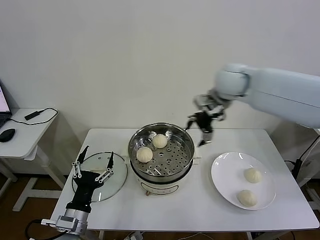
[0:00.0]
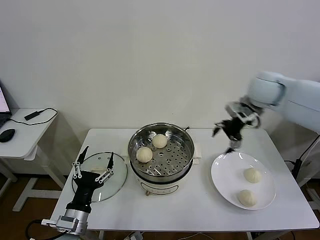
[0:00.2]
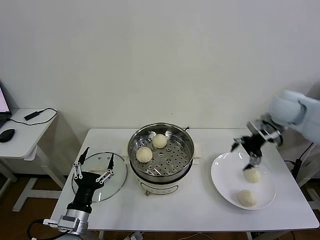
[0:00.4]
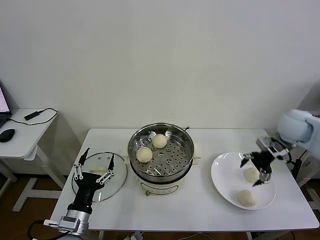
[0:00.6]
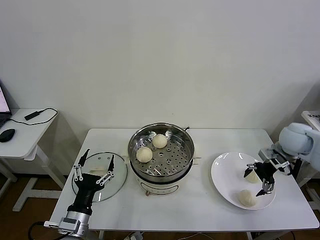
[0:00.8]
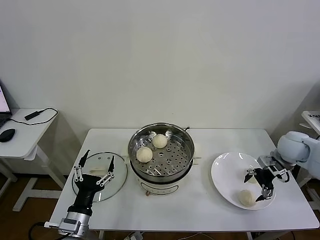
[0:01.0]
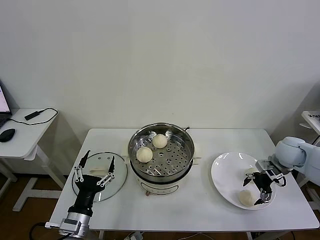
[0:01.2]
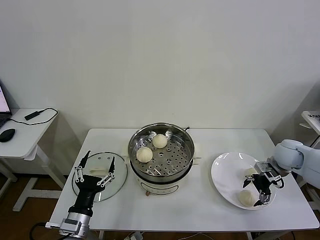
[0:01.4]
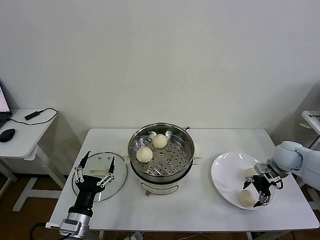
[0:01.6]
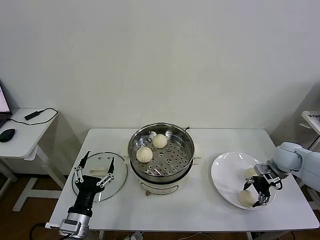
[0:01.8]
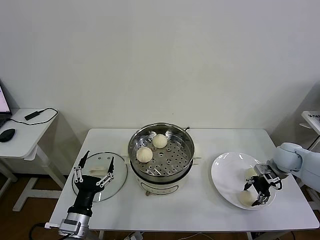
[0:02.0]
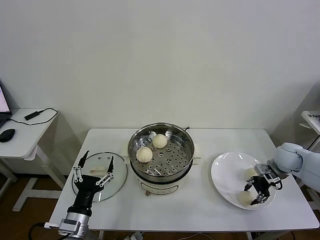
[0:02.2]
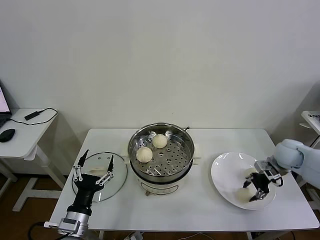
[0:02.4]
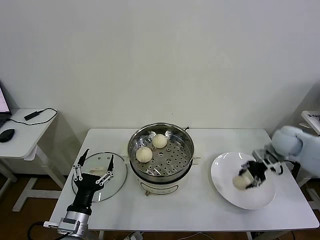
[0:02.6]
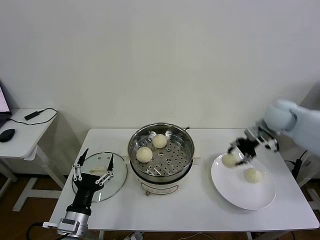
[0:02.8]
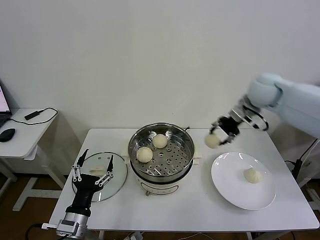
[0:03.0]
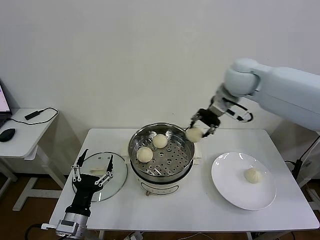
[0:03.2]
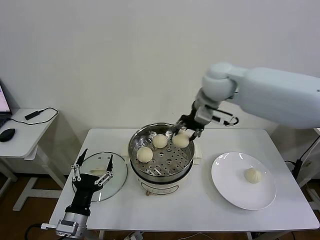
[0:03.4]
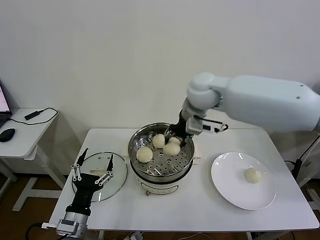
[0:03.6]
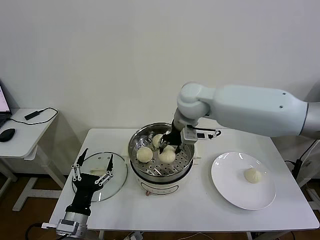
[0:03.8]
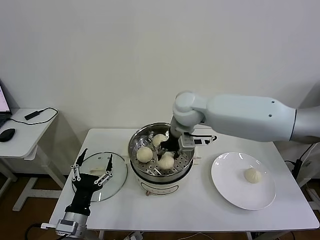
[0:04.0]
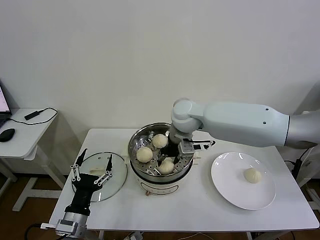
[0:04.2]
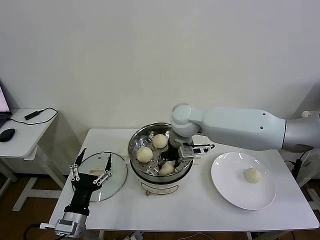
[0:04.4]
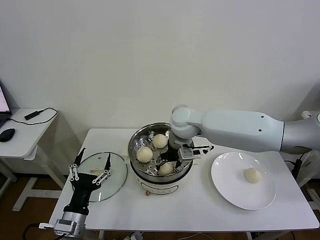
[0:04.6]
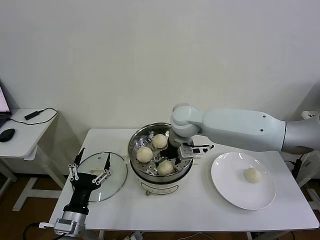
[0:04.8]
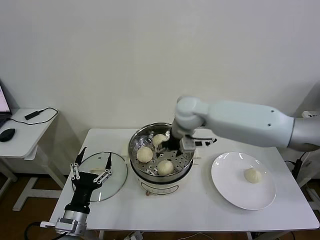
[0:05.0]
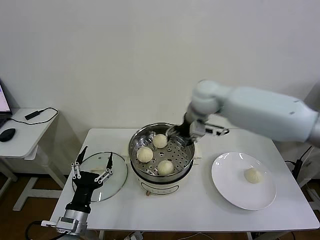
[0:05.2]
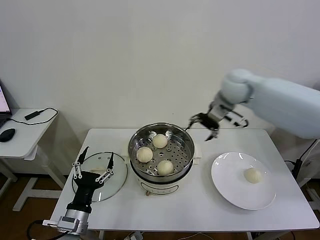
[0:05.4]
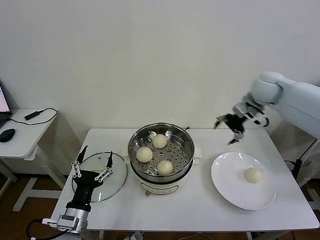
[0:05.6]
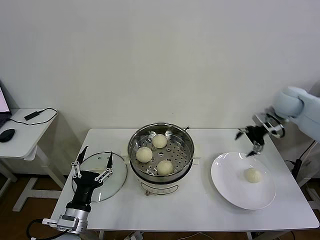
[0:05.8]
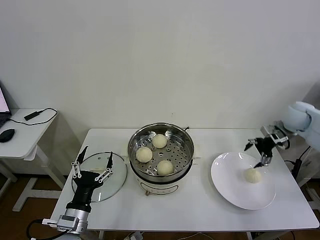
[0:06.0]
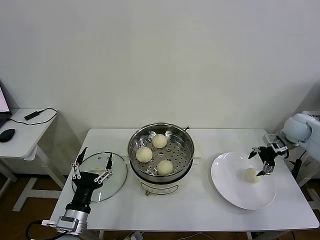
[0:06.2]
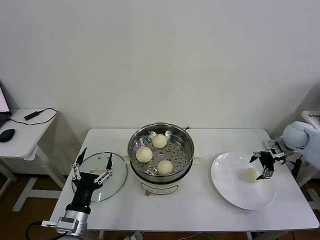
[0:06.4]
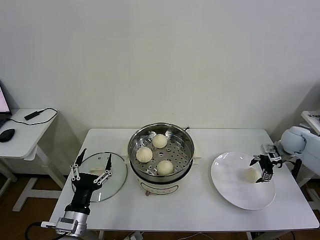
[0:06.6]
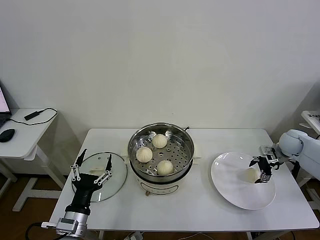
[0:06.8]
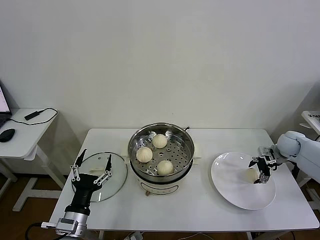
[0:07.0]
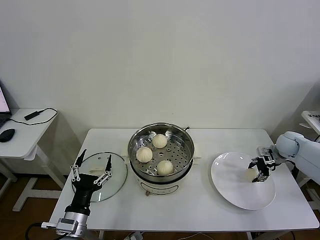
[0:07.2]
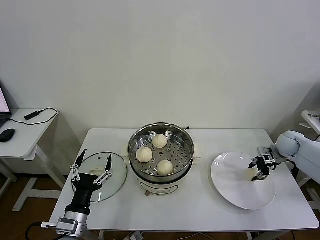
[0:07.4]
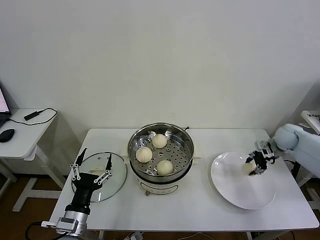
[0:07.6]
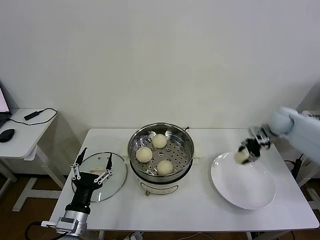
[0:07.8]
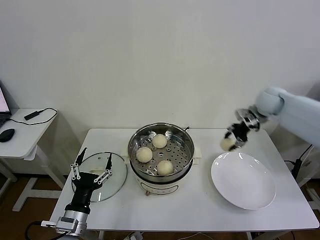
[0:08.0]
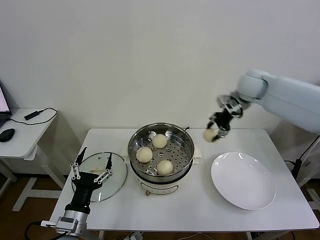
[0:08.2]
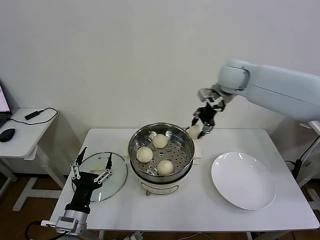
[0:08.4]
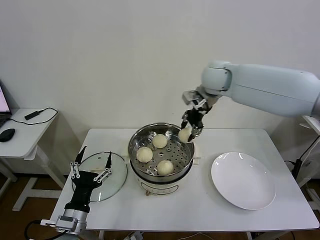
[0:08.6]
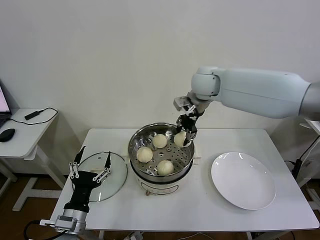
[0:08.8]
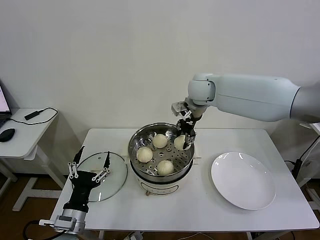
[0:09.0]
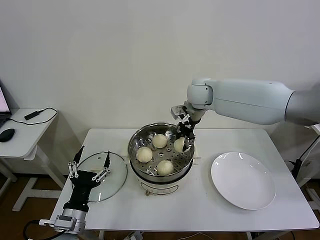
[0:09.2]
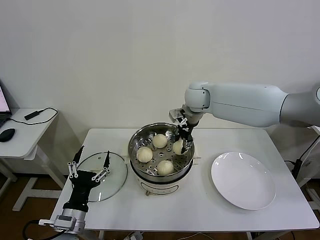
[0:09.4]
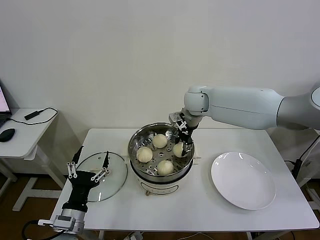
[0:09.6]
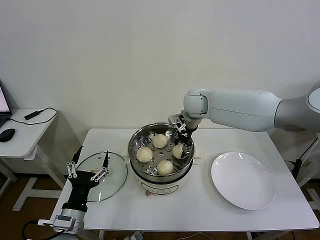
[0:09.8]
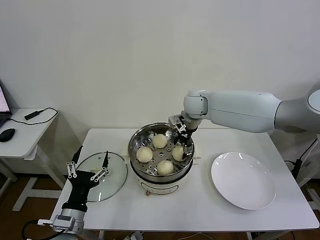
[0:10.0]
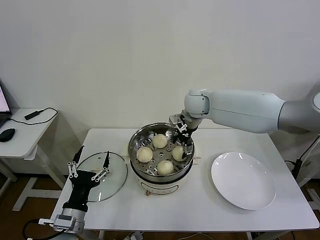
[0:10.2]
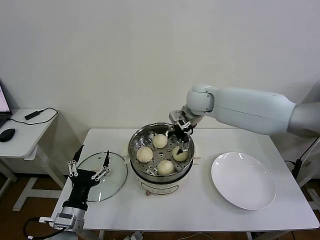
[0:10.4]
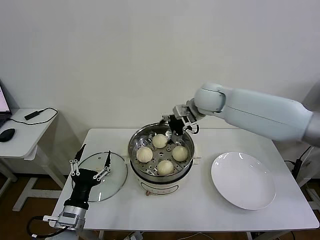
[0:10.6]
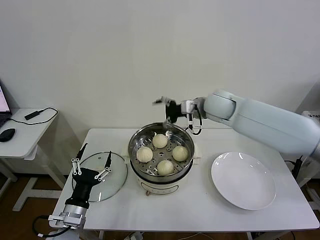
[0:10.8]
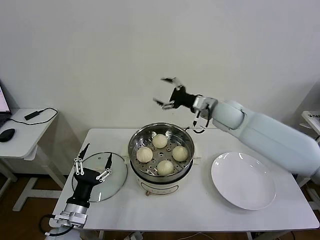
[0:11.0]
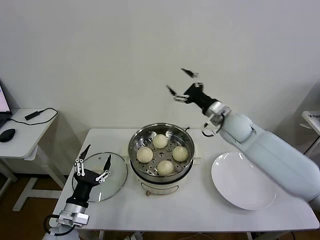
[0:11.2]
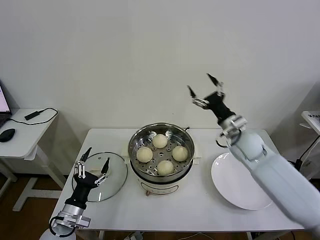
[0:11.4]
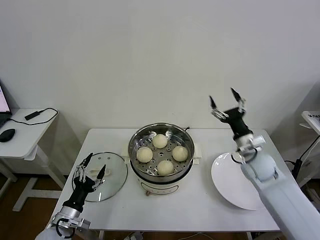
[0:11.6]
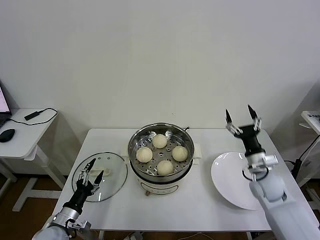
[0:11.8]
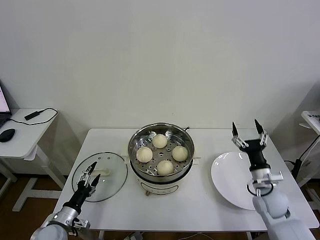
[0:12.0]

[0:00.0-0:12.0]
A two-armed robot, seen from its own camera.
Task of the whole recording: take steamed baozi put them in steamer then cover it.
Step, 0:00.0 to 0:02.2: Grasp the baozi in the plate with right gripper.
Step, 0:02.4 to 0:04.6: Place the baozi on the steamer with right gripper.
Step, 0:05.0 to 0:07.4: Grasp the baozi in the plate with right gripper.
Step, 0:07.6 to 0:10.2: Place the baozi on the steamer with right gripper.
0:00.0 to 0:01.6: The right gripper shifts some 35 cm to the right and downward.
0:01.6 to 0:03.0: The right gripper shifts roughly 25 cm upward, to the left and forward, and closes.
0:03.0 to 0:04.4: The right gripper goes some 25 cm to the left.
0:04.4 to 0:06.0: The right gripper goes roughly 40 cm to the right, and opens up.
0:06.0 to 0:07.6: The right gripper is displaced downward by some 10 cm, and closes.
0:07.6 to 0:09.0: The right gripper travels to the left and upward by about 40 cm.
0:09.0 to 0:10.4: The right gripper opens.
0:10.4 to 0:12.0: The right gripper goes roughly 40 cm downward, to the right and backward, while the left gripper is displaced downward and to the left by about 15 cm.

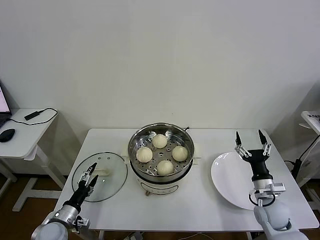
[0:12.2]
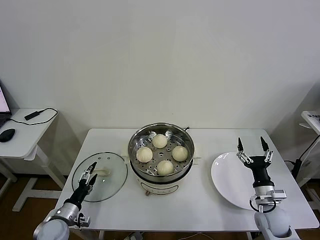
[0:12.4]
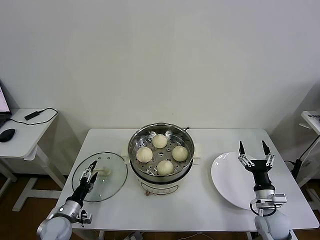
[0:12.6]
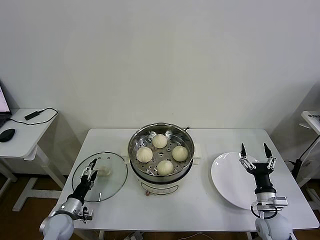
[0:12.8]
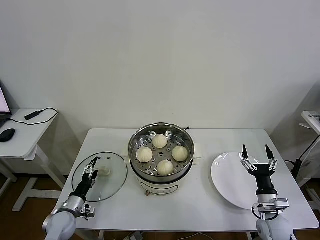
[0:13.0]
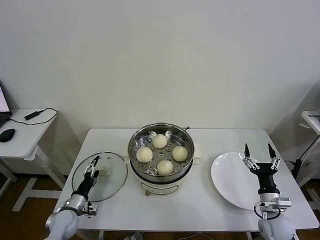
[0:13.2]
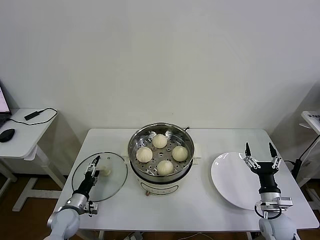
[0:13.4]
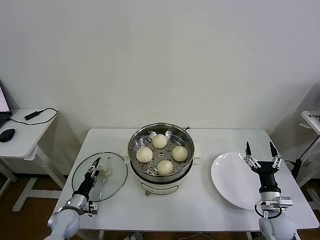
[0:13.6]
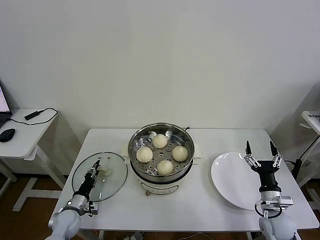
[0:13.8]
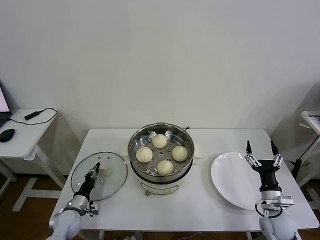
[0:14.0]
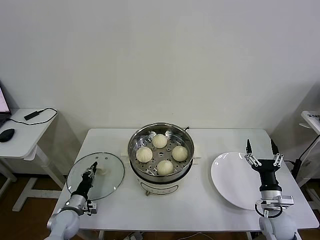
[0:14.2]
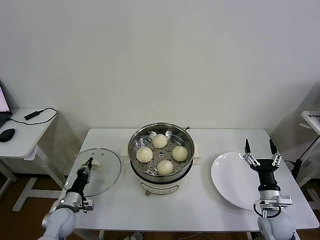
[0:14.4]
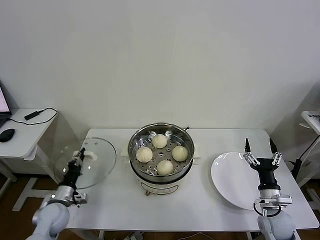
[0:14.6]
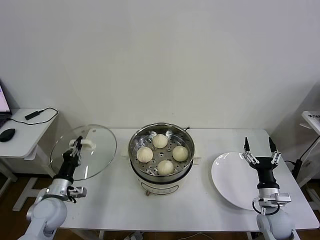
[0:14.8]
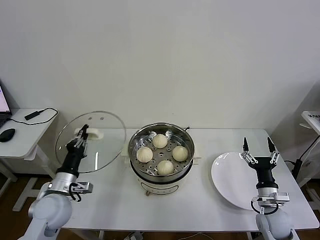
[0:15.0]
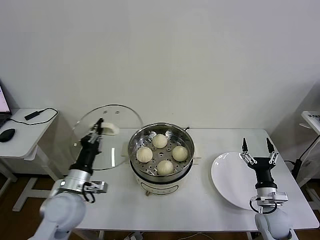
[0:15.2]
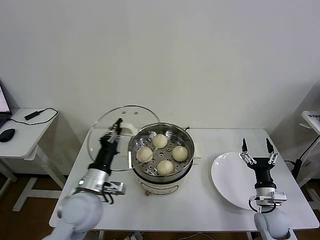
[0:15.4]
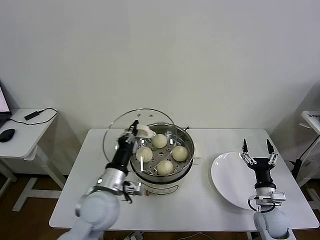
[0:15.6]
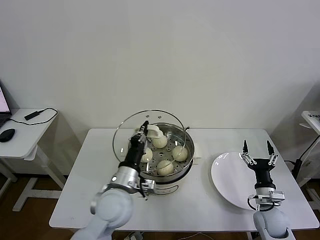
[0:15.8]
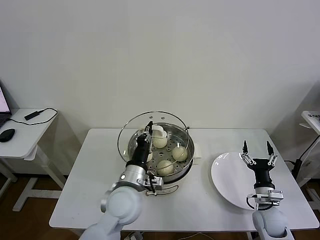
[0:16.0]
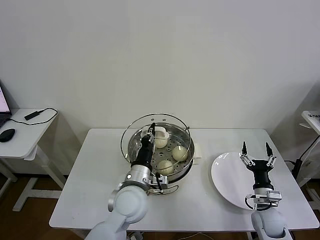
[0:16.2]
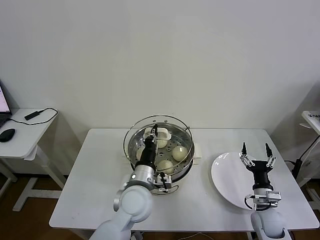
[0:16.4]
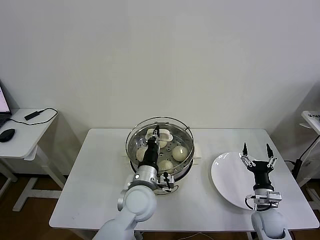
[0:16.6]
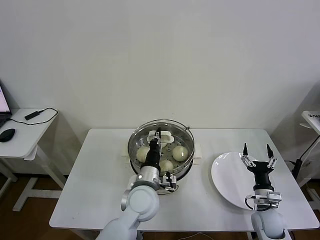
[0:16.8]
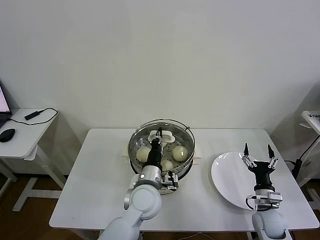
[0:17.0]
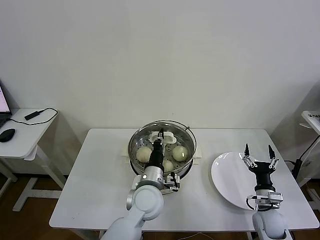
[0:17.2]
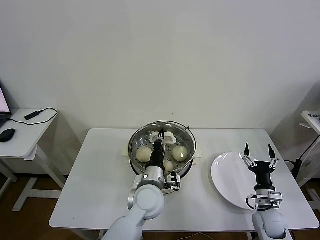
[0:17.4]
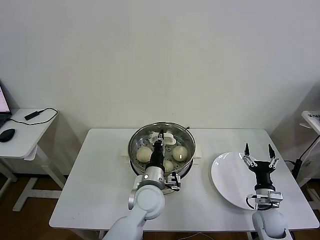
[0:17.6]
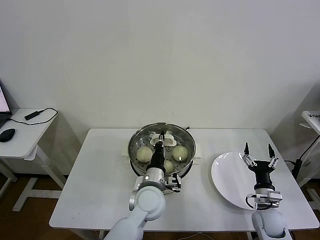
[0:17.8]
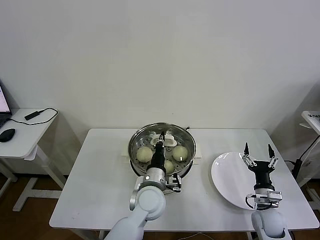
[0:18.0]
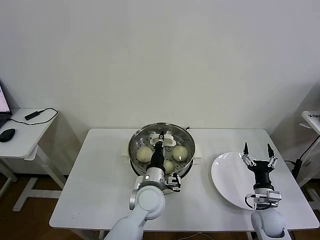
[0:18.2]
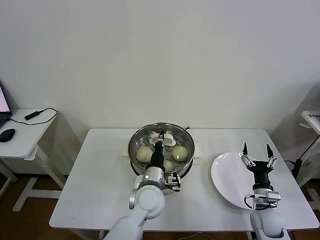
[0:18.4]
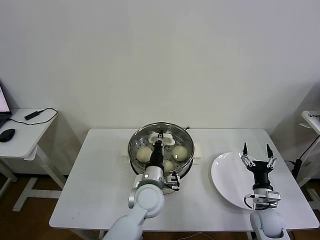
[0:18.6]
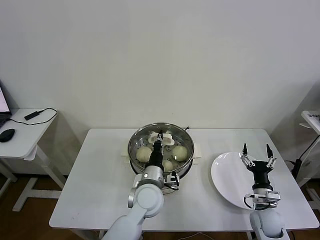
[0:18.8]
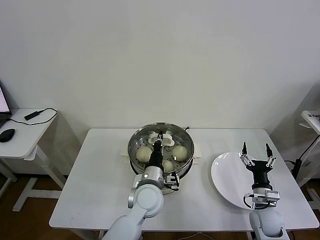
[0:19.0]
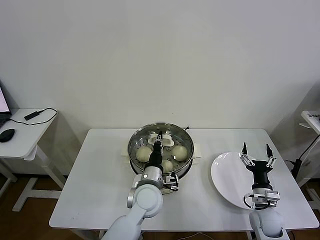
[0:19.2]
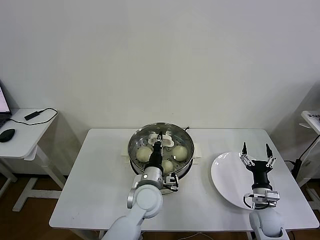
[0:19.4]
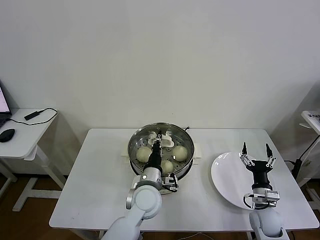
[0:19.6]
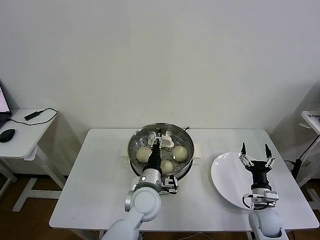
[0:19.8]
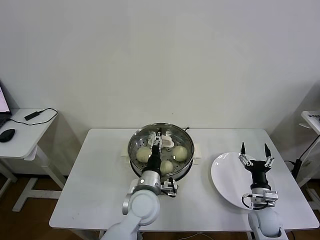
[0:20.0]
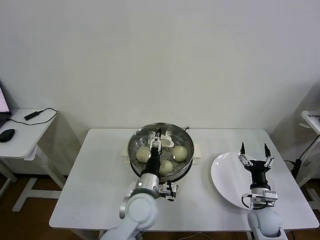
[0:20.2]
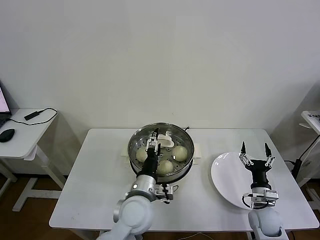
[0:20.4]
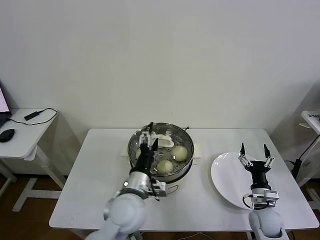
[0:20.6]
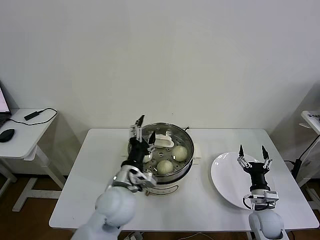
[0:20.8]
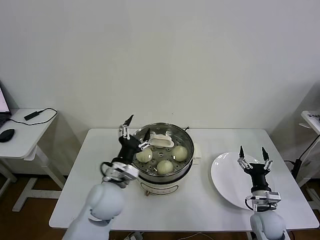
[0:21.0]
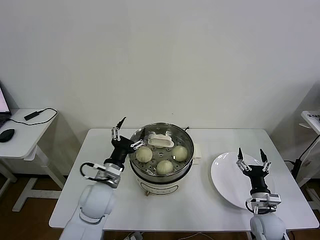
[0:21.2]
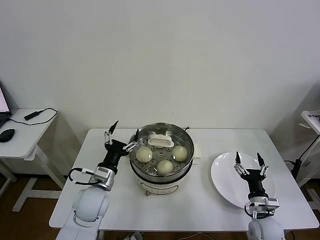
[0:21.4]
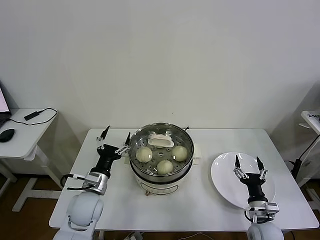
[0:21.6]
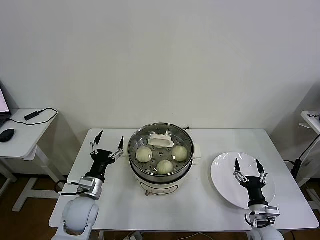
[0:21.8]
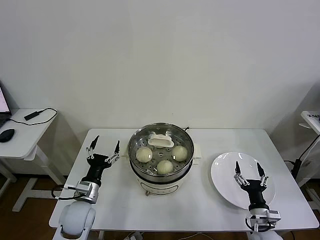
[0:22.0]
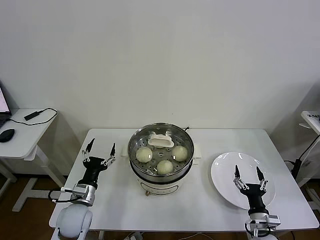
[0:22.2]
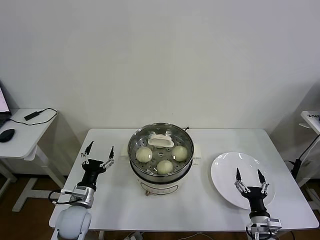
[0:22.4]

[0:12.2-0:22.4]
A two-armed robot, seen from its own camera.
Task of the whole recording: take steamed baozi put them in steamer then cover it.
Step, 0:12.2 to 0:14.2: Grasp the pot lid with left gripper.
Step, 0:14.4 to 0:19.8: Place the pot lid on the steamer with left gripper.
0:12.2 to 0:13.6: The left gripper is displaced forward by about 5 cm.
0:13.6 to 0:15.2: The left gripper shifts roughly 20 cm upward, and closes.
0:15.2 to 0:16.6: The left gripper is displaced to the right by roughly 20 cm.
0:16.6 to 0:18.0: The grippers move only a little.
0:18.0 to 0:19.4: Both grippers stay put.
0:19.4 to 0:21.0: The left gripper travels to the left and upward by approximately 10 cm, and opens its fingers.
0:21.0 to 0:22.4: The left gripper moves to the left and downward, approximately 20 cm. The right gripper travels backward by about 5 cm.
